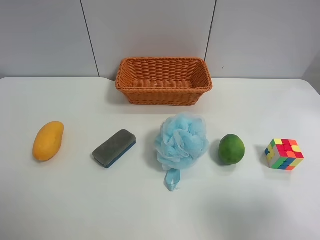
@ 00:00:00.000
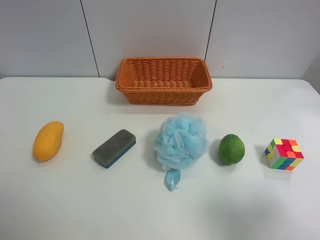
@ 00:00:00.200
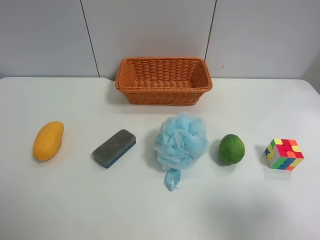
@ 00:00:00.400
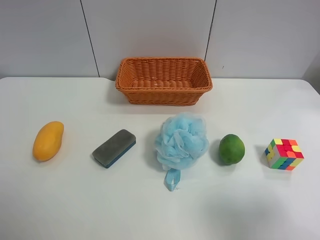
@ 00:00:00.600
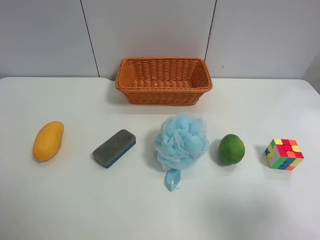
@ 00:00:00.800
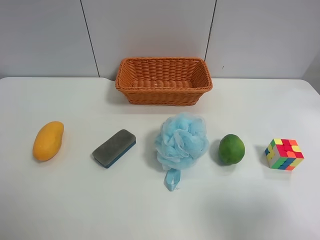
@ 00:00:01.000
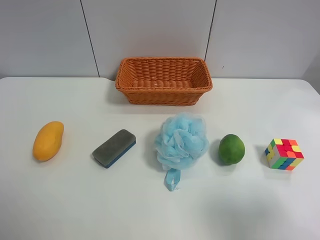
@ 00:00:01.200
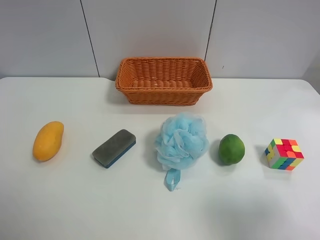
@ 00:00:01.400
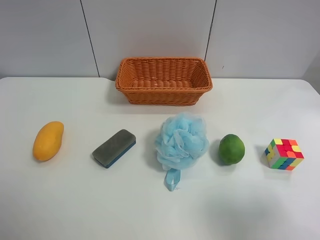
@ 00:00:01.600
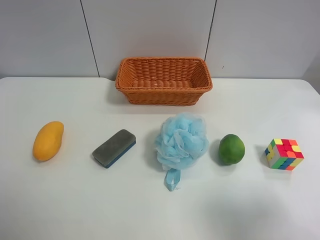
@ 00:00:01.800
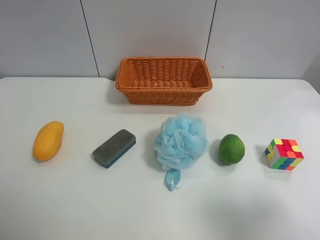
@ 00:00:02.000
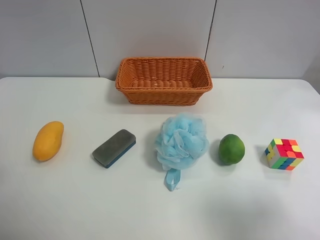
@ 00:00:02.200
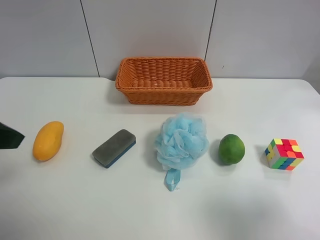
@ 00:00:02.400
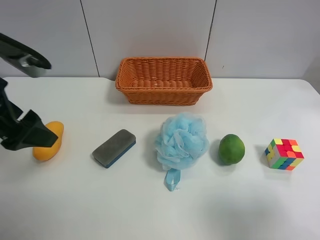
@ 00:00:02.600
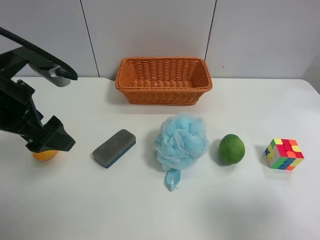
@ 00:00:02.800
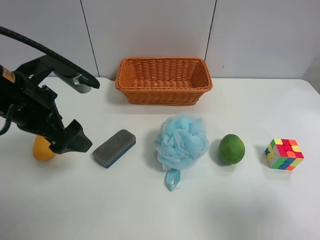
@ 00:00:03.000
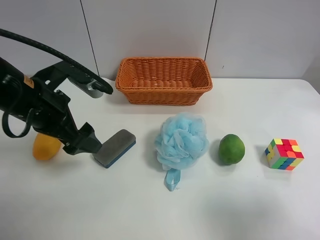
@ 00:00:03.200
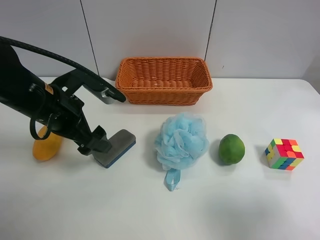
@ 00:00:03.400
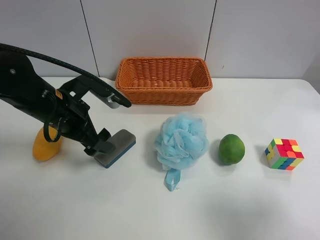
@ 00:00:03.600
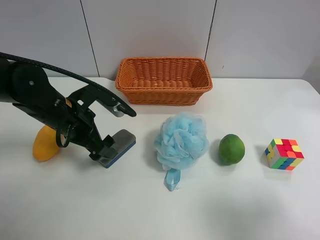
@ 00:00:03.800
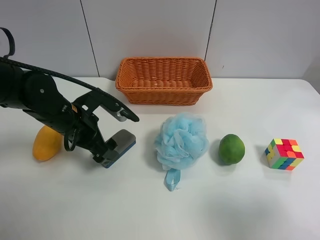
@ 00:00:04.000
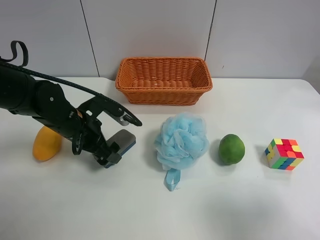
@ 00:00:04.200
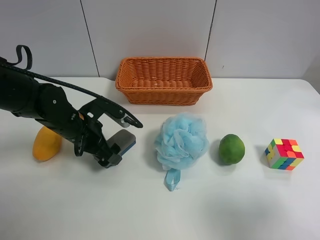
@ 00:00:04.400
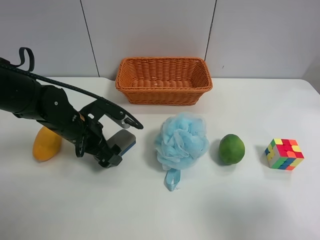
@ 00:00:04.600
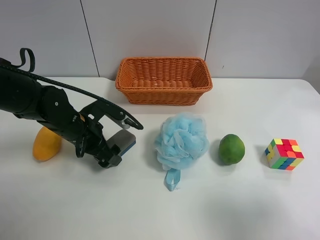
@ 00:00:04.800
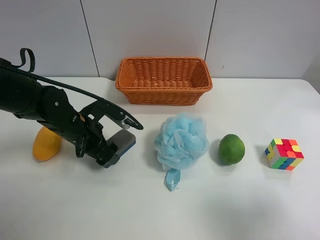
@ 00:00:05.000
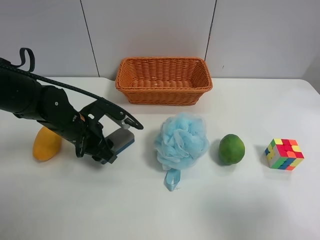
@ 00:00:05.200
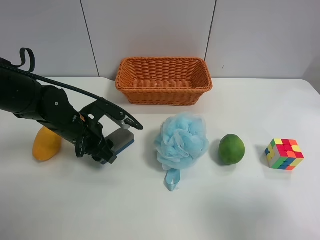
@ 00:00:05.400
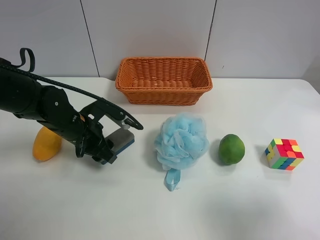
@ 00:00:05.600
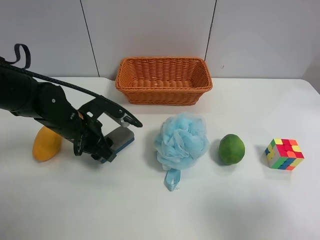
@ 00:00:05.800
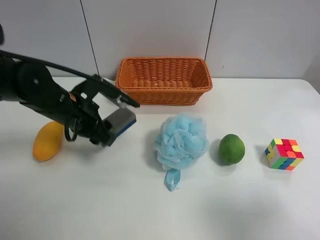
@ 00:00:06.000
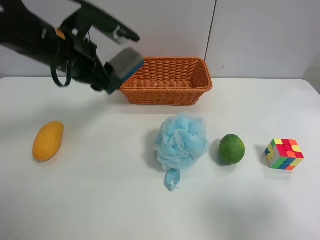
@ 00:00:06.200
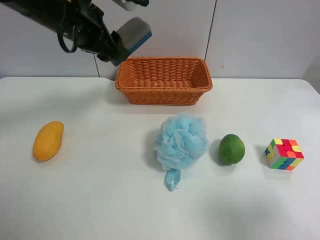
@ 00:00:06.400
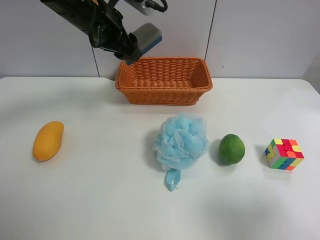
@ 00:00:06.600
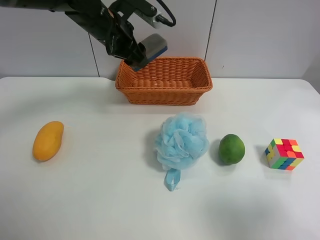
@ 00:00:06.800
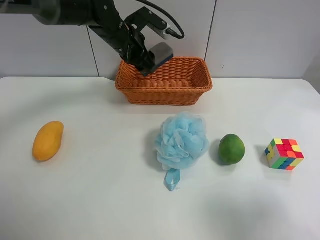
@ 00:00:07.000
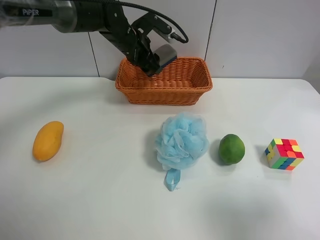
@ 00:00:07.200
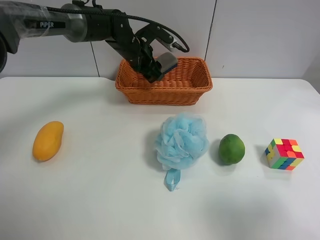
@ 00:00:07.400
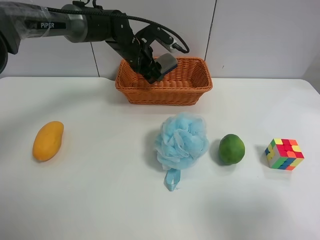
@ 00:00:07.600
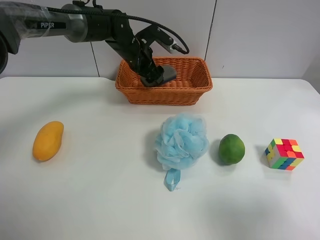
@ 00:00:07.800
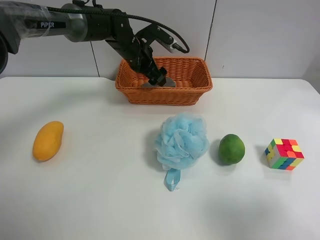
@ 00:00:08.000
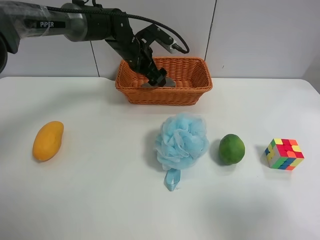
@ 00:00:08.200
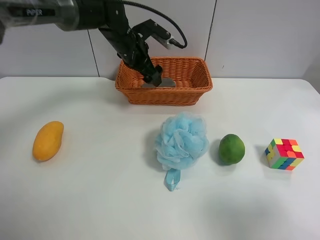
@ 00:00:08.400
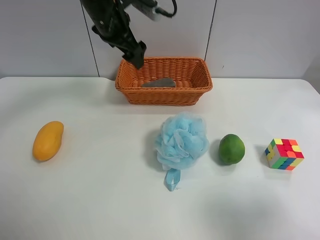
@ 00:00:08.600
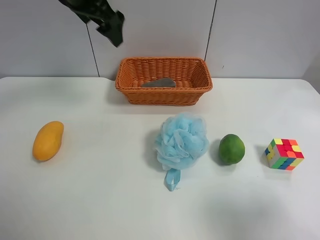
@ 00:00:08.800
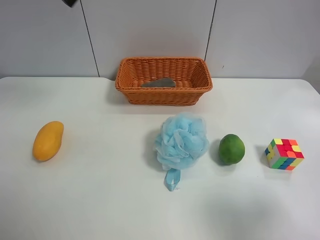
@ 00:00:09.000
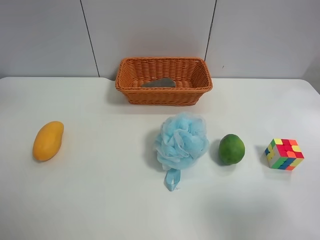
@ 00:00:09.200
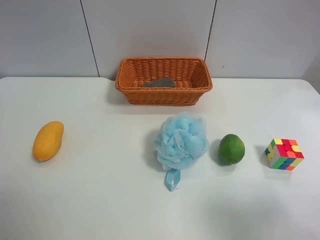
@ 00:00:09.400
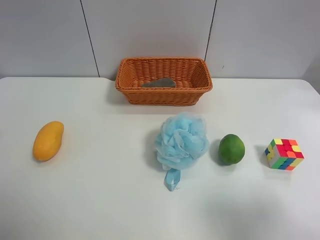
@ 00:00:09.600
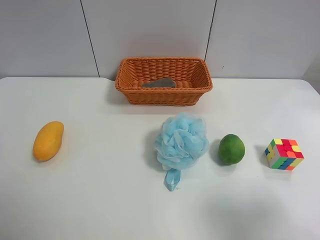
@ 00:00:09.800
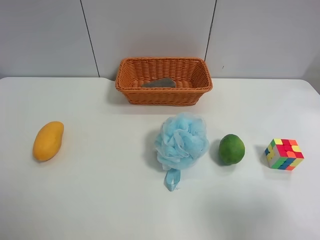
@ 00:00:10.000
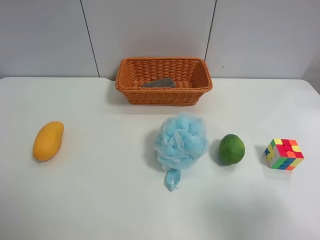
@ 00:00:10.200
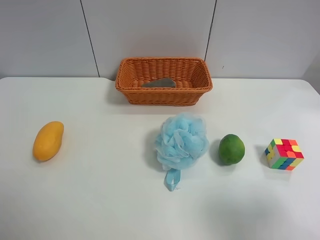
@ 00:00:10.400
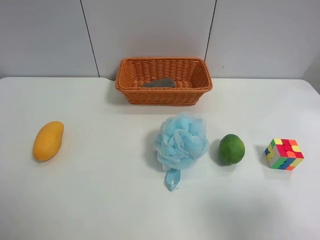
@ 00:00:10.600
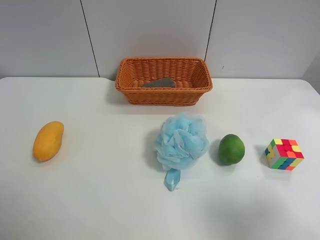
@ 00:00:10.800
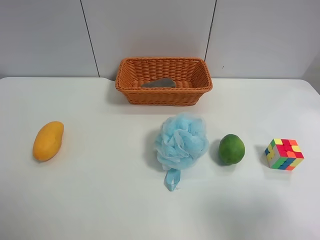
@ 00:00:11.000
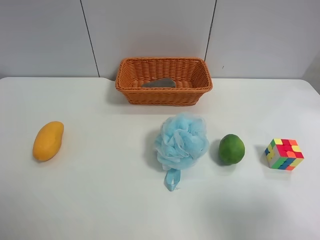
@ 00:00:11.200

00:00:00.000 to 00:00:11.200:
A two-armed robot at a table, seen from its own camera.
Task of the whole recording: use the left gripper to grab items from the table and place them in the basket.
Step, 00:00:00.000 to 00:00:05.200: Grasp the chalkboard eraser with the left gripper.
Step, 00:00:05.400 to 00:00:08.000: Place the chalkboard eraser into the basket with the left gripper.
00:00:01.600 to 00:00:03.200: The left gripper travels forward, to the right and downward by about 30 cm.
00:00:03.200 to 00:00:04.800: The left gripper travels downward by some 10 cm.
00:00:04.800 to 00:00:06.400: The left gripper moves upward, approximately 20 cm, and closes up.
00:00:06.400 to 00:00:08.000: The left gripper is displaced forward, downward and to the right by about 20 cm, and opens its fingers.
00:00:08.000 to 00:00:09.600: The left gripper goes some 50 cm backward, upward and to the left.

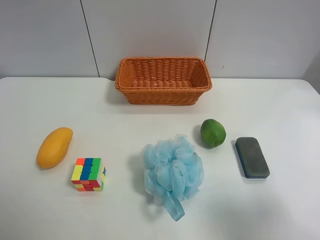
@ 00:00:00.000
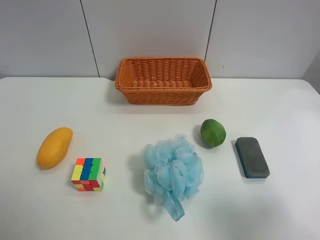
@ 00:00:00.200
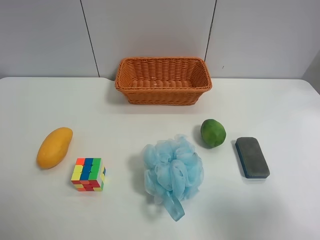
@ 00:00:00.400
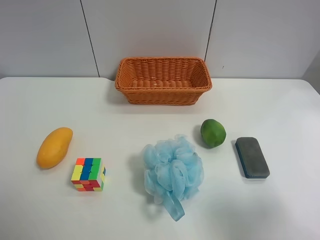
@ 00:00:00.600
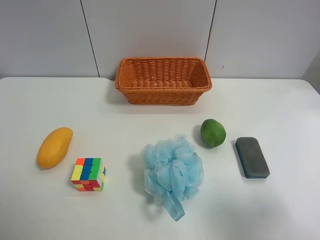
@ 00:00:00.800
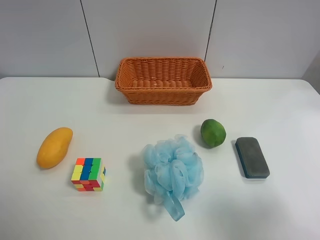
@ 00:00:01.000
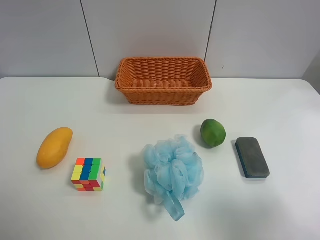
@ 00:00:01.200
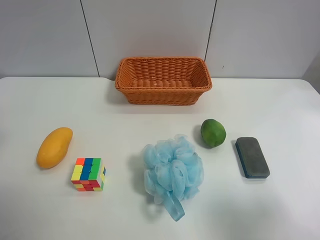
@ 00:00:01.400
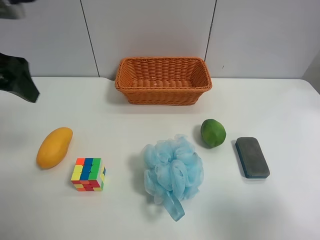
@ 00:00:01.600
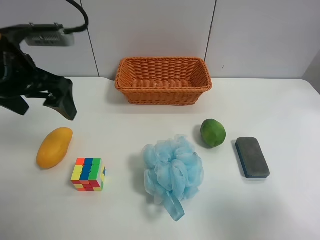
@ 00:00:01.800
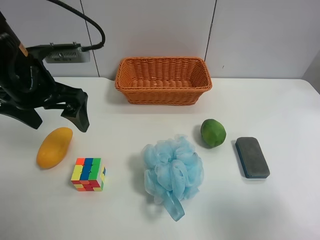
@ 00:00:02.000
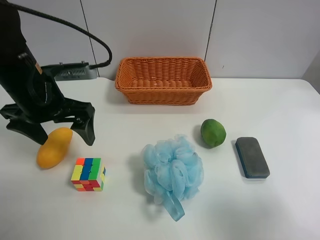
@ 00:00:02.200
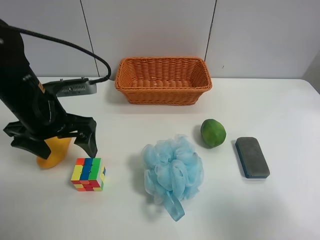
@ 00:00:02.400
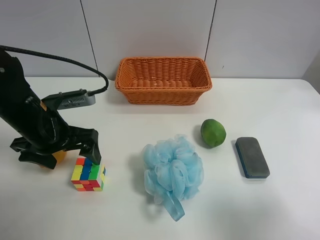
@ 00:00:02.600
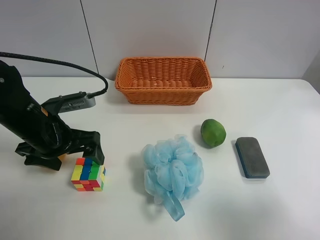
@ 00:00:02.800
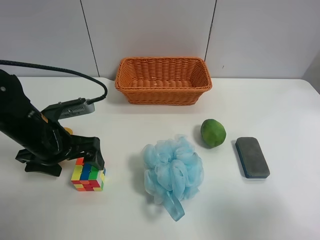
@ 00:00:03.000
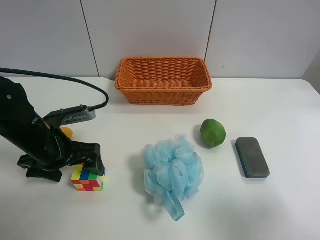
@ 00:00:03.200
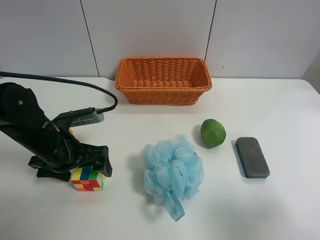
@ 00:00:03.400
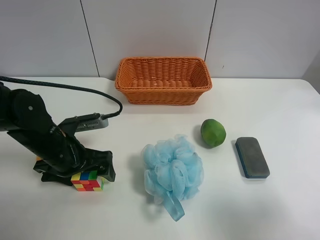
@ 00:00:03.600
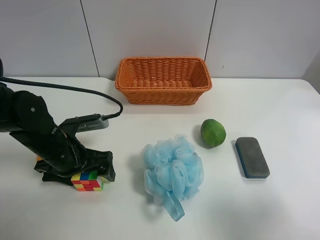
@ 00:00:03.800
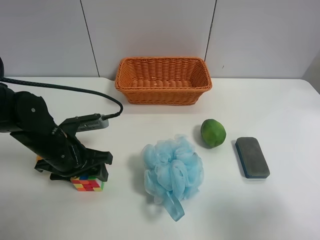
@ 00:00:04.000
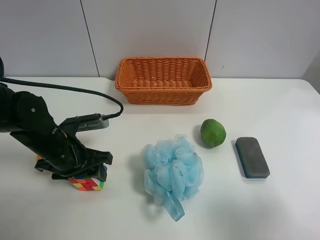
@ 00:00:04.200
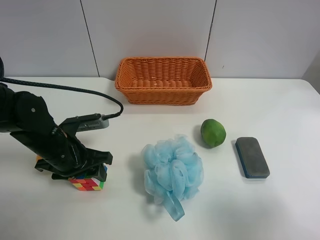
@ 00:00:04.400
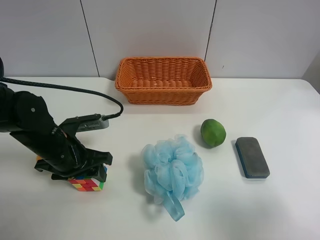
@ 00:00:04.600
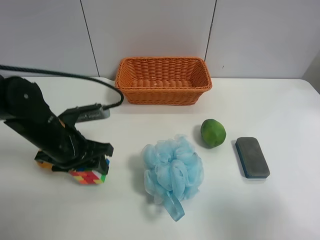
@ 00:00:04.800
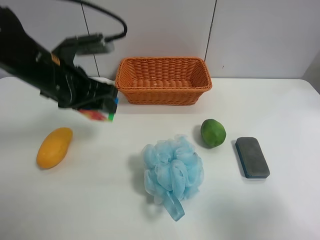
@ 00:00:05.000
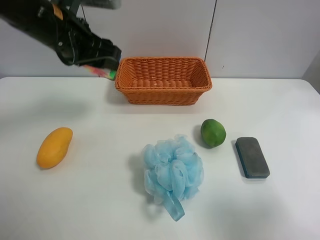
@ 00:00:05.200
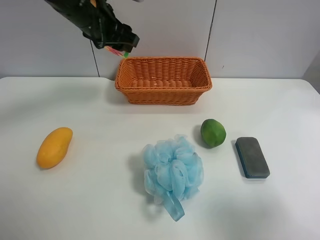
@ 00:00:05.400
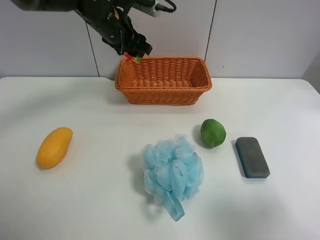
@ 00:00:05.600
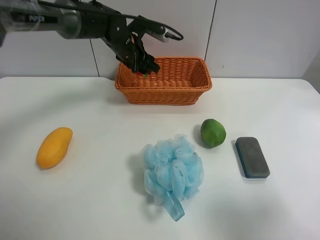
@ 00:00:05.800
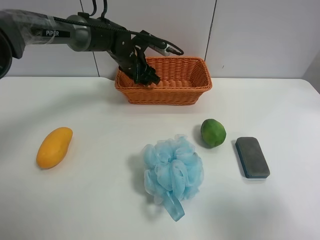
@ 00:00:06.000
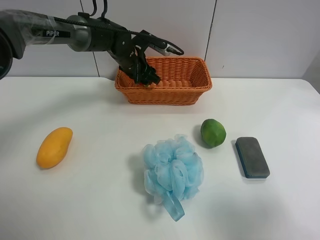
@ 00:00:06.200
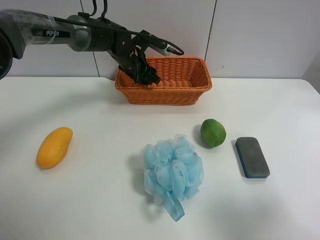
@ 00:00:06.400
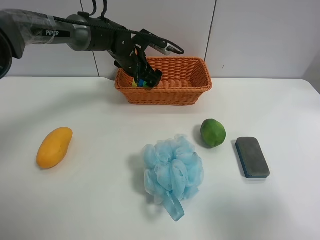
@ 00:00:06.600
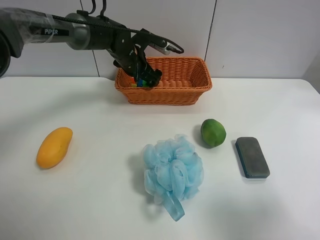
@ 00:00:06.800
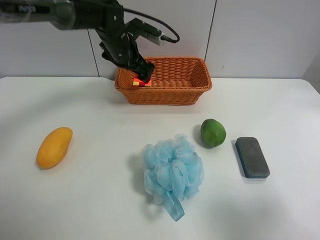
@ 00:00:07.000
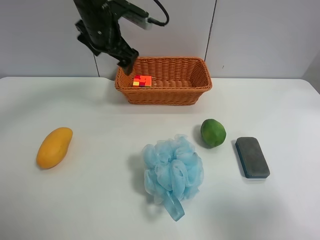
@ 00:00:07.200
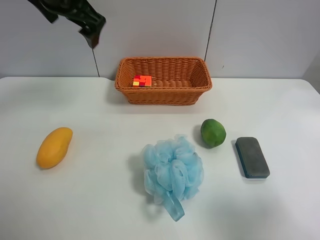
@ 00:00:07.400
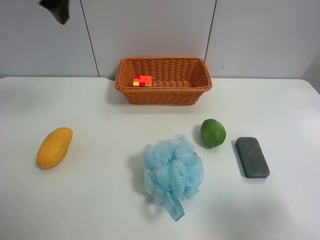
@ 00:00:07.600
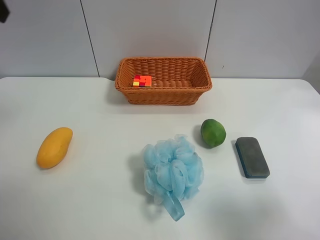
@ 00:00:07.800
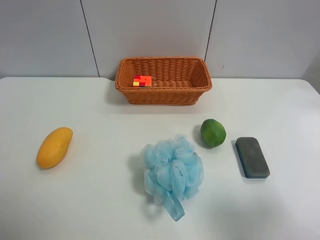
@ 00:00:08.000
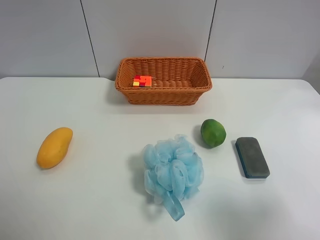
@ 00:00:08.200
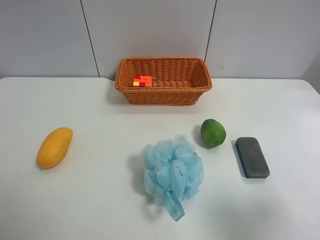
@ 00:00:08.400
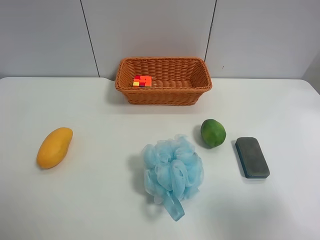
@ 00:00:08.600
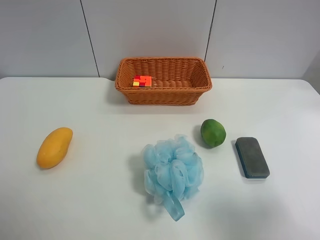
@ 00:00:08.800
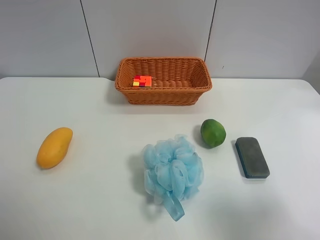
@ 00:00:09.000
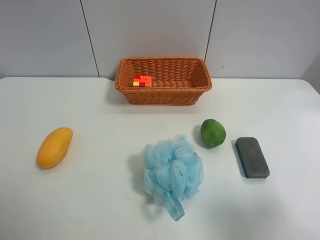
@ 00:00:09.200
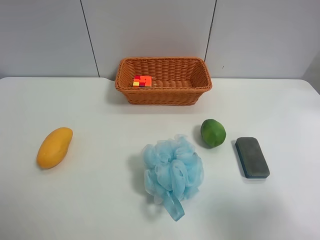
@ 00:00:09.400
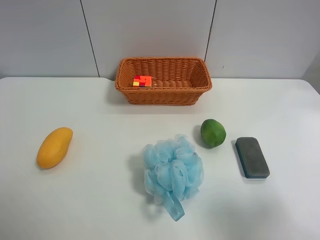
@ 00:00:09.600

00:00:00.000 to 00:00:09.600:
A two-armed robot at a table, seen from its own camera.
Task of the whole recording: use the left gripper to grab items from the table and place them in the basket.
Step, 00:00:00.000 to 00:00:04.000: Grasp the Rubik's Cube with the left gripper.
Step, 00:00:04.200 to 00:00:06.600: Place the Rubik's Cube into the basket with the left gripper.
00:00:00.000 to 00:00:01.600: The left gripper is displaced forward by roughly 25 cm.
00:00:01.600 to 00:00:03.200: The left gripper shifts approximately 20 cm downward.
00:00:03.200 to 00:00:04.800: The left gripper closes.
00:00:04.800 to 00:00:06.400: The left gripper goes approximately 25 cm forward and to the right.
00:00:06.400 to 00:00:08.000: The left gripper is displaced backward, upward and to the left by approximately 50 cm, and opens.
